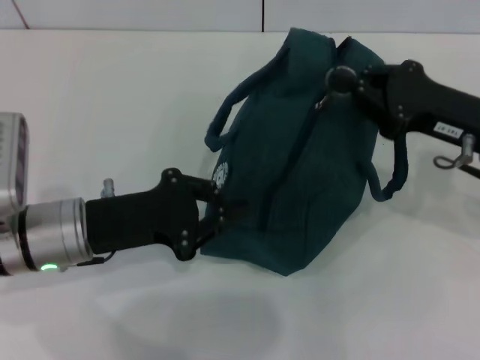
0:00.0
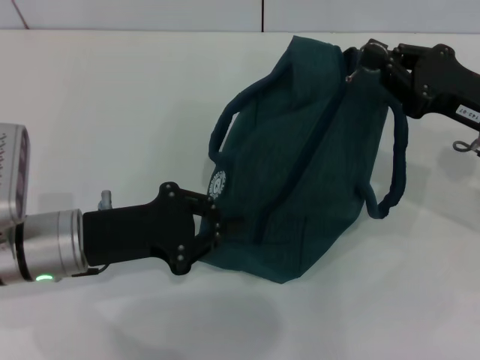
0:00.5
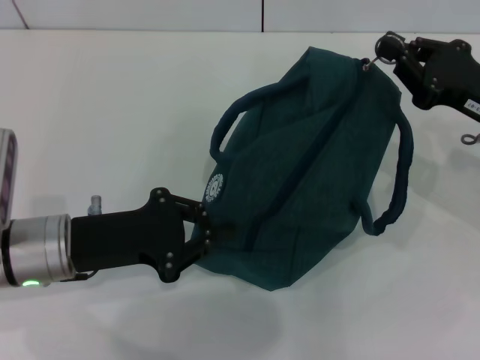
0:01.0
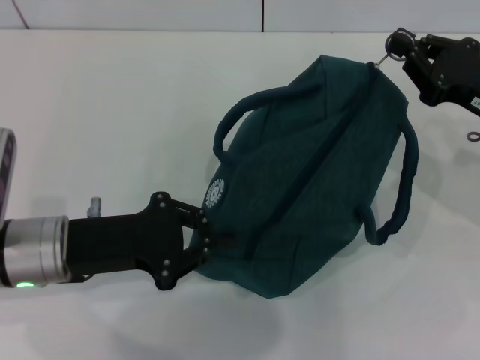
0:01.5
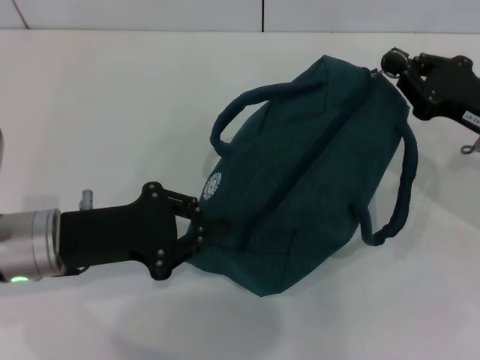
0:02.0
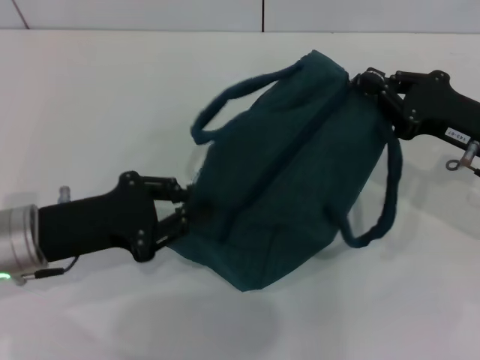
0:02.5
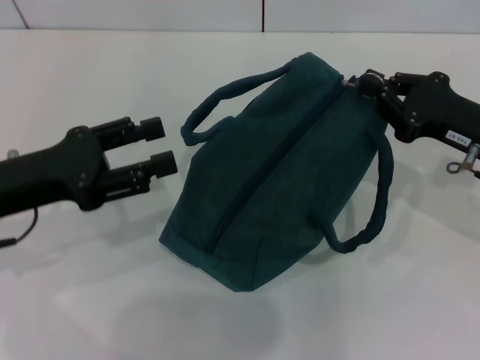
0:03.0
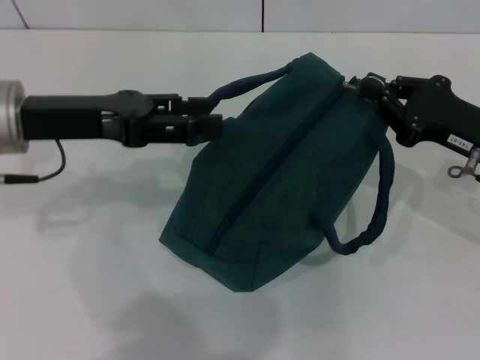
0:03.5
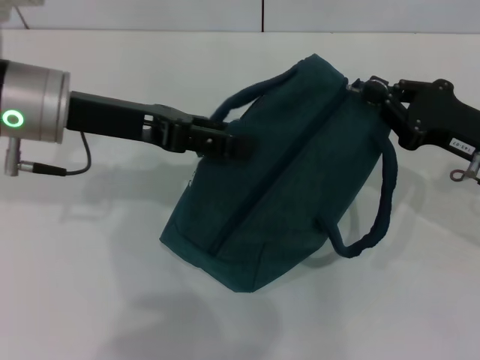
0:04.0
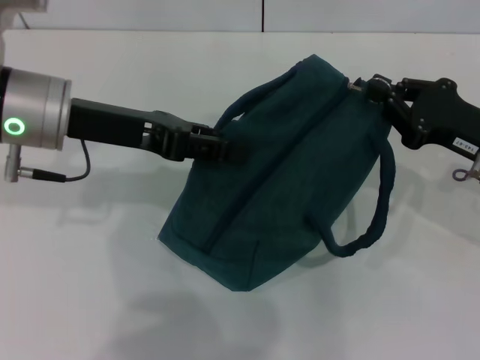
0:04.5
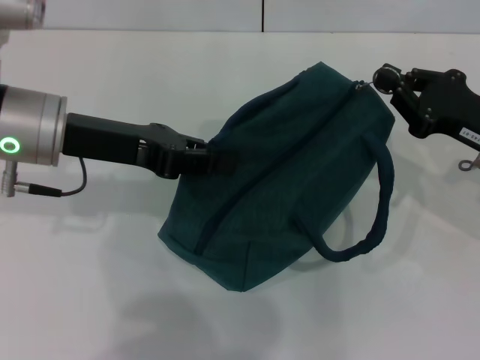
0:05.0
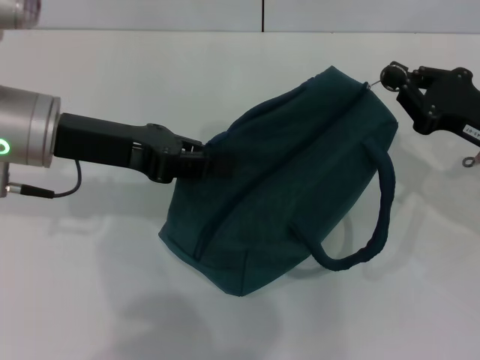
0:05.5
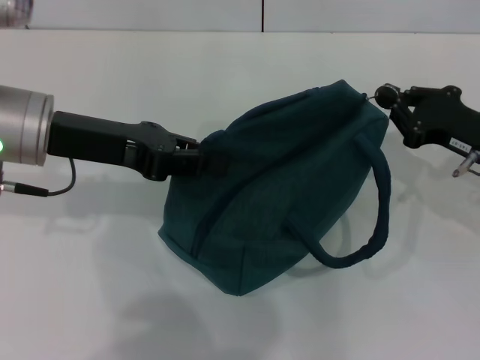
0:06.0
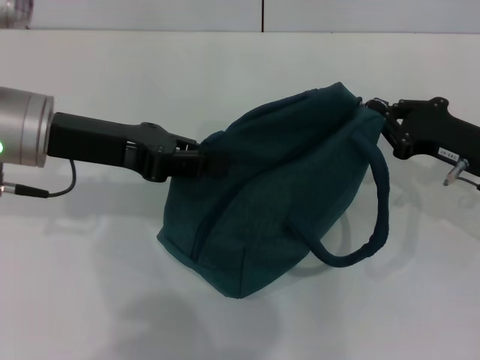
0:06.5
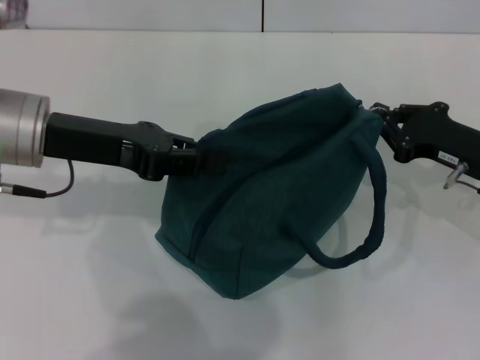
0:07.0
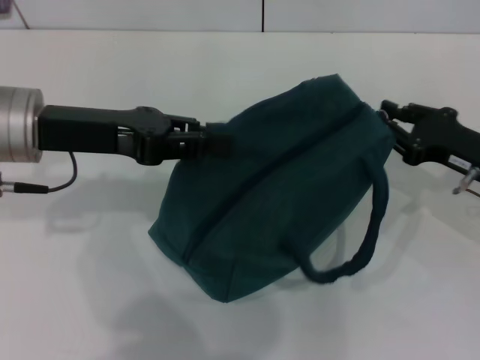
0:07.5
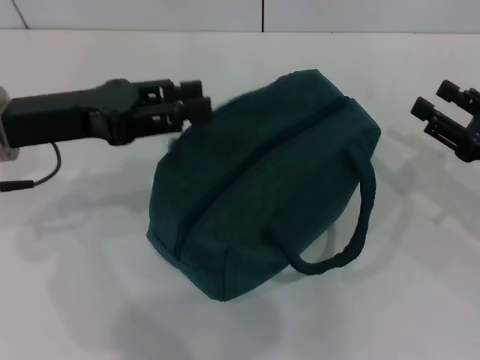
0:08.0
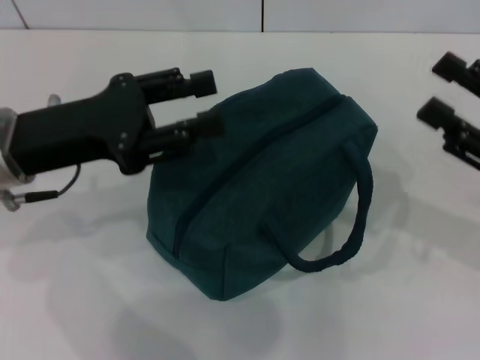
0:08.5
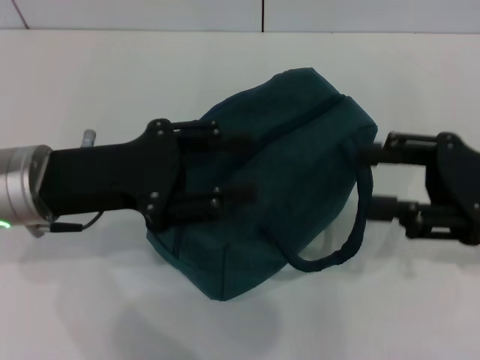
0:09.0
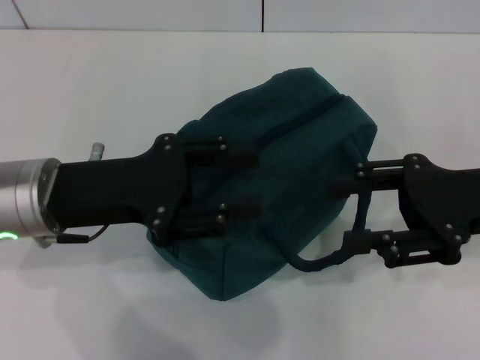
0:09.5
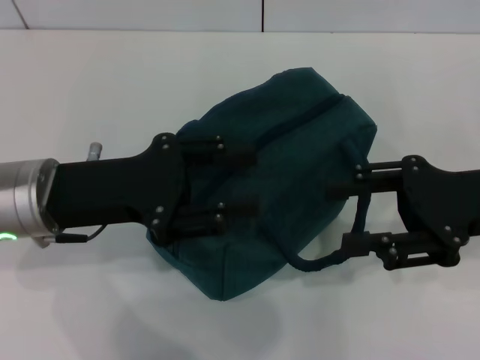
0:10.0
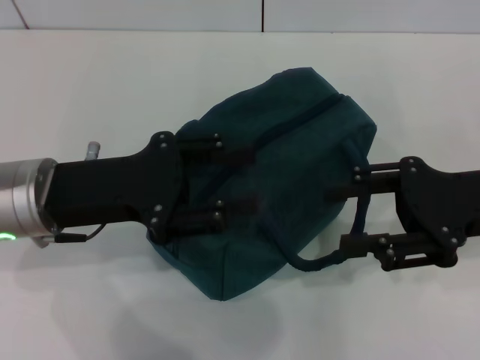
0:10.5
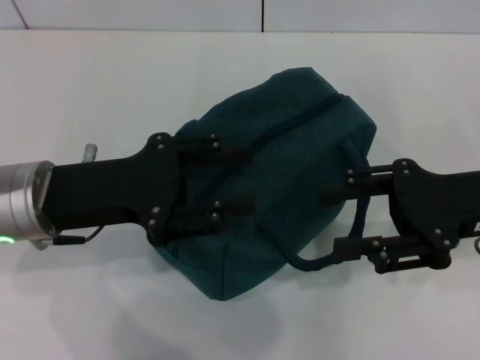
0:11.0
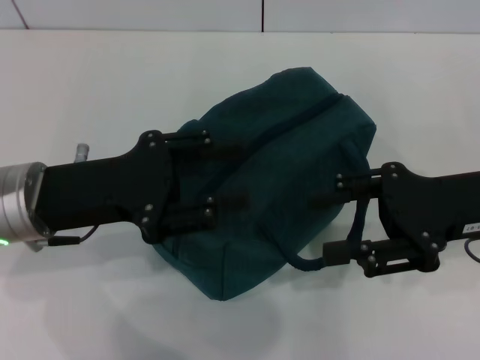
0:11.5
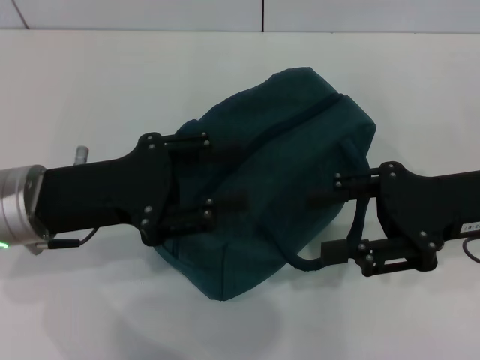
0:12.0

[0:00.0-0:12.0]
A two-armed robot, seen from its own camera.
Step, 0:00.0 to 0:07.5: Zip up the lunch bag with your right hand.
0:00.0 to 0:02.0: There are only small adjustments of the grippers.
0:02.0 to 0:04.0: The left gripper is displaced upward and forward by some 15 cm, and opens up.
0:04.0 to 0:06.0: The left gripper closes its fingers.
0:06.0 to 0:08.0: The left gripper opens its fingers. The right gripper ends up about 5 cm from where it was, and opens its fingers.
0:08.0 to 0:10.0: The right gripper moves upward and to the left, approximately 10 cm. Meanwhile the left gripper ends up about 5 cm from where it was.
0:10.0 to 0:12.0: The grippers move only a little.

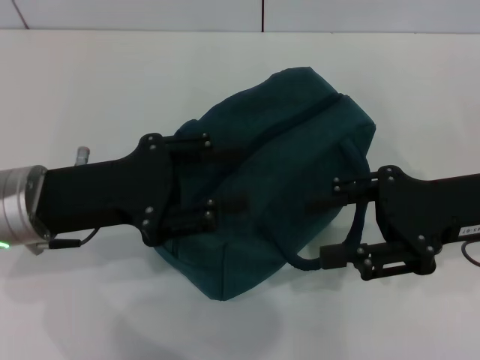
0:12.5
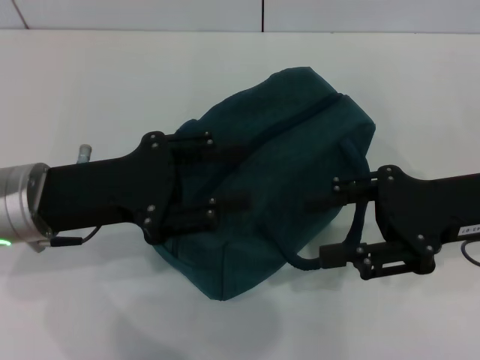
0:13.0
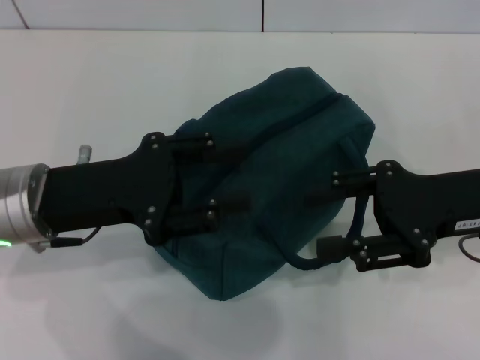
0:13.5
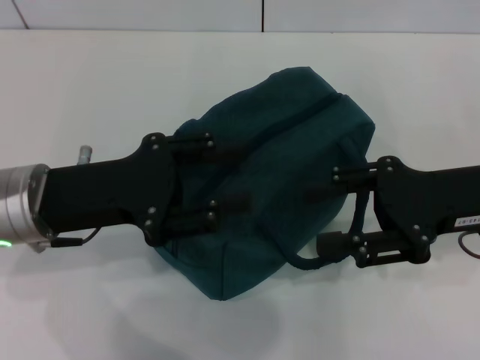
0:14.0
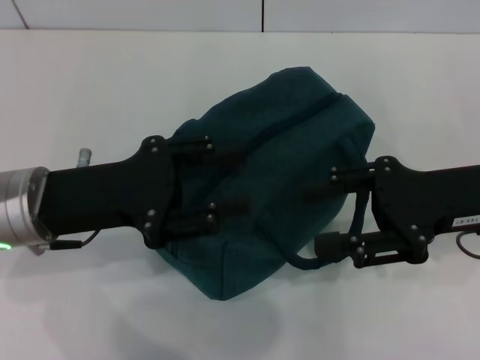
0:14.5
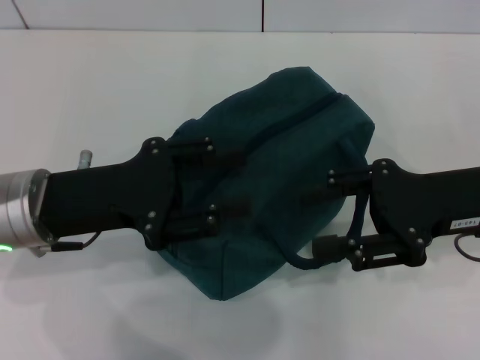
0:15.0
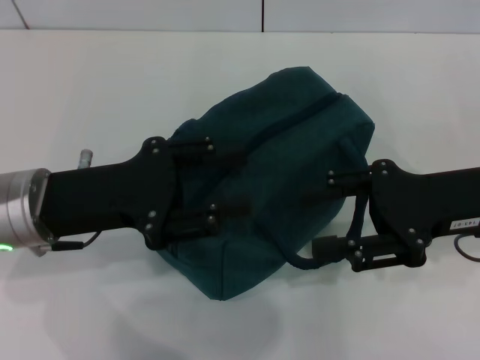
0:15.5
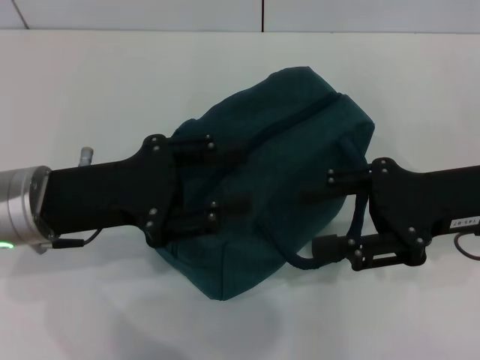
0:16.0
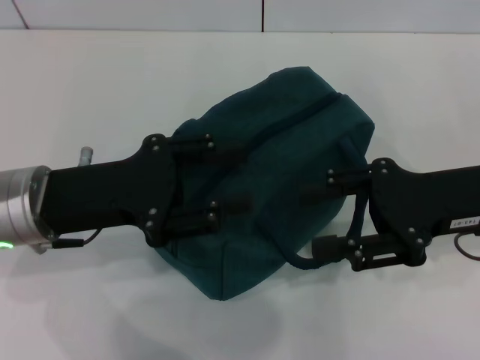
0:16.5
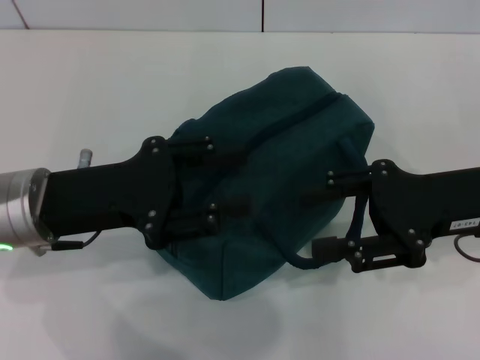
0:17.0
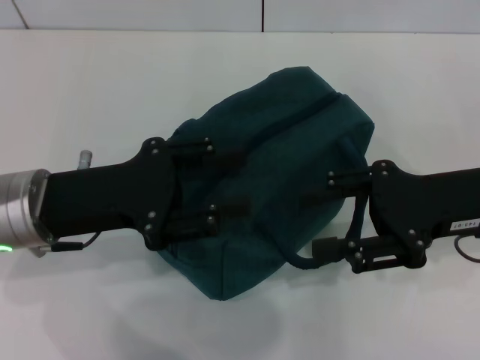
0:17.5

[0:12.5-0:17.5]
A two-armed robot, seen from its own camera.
0:12.5 to 0:17.5: The two grippers keep their place.

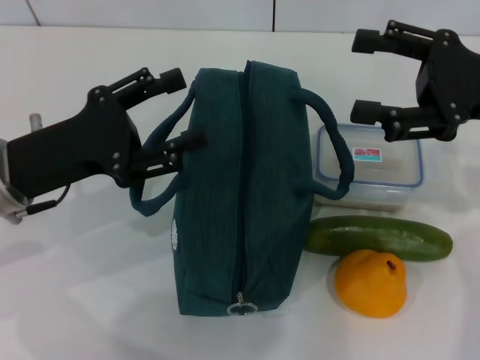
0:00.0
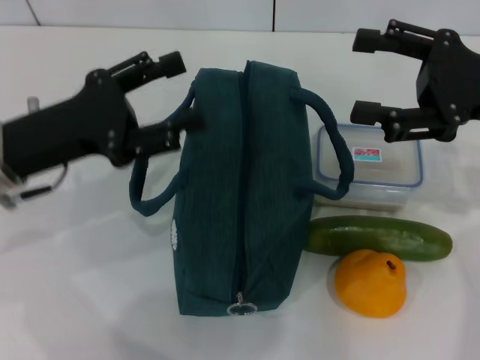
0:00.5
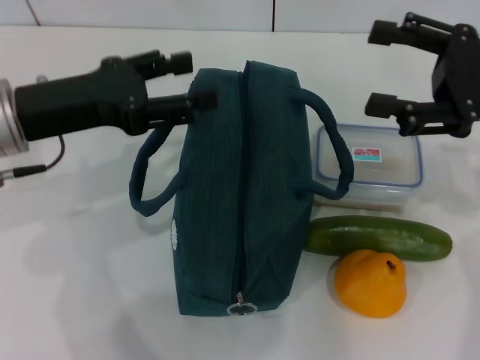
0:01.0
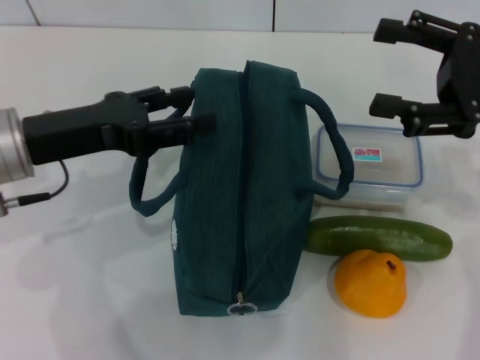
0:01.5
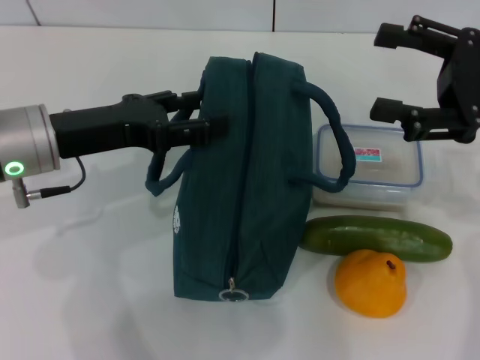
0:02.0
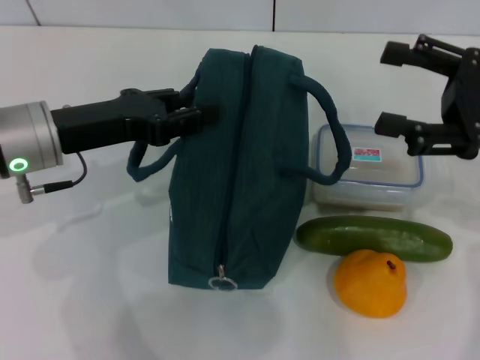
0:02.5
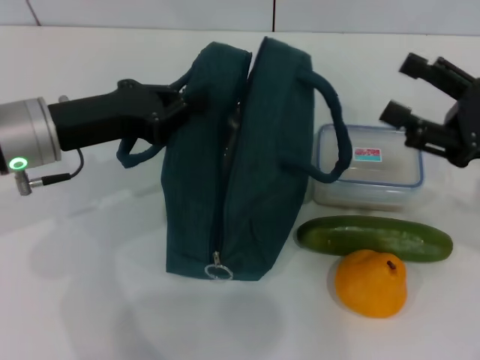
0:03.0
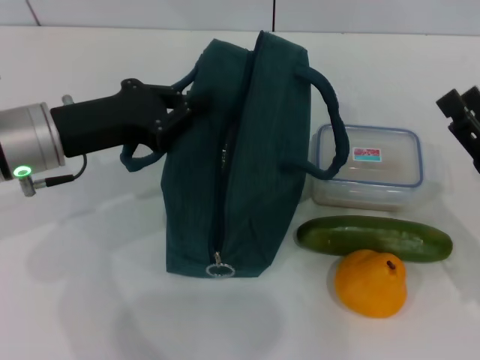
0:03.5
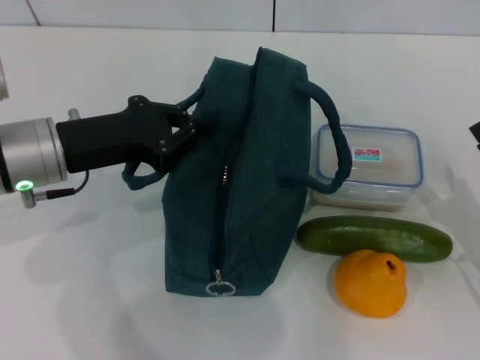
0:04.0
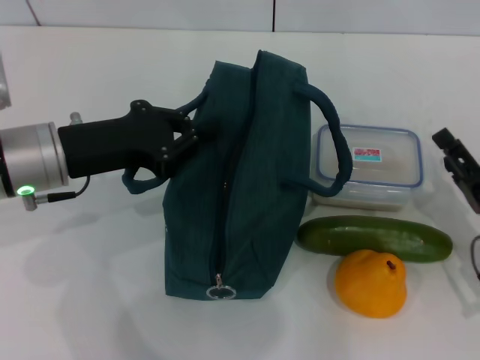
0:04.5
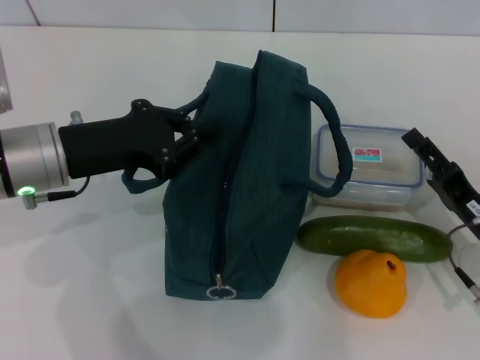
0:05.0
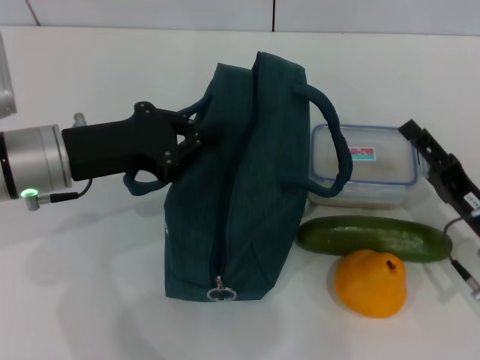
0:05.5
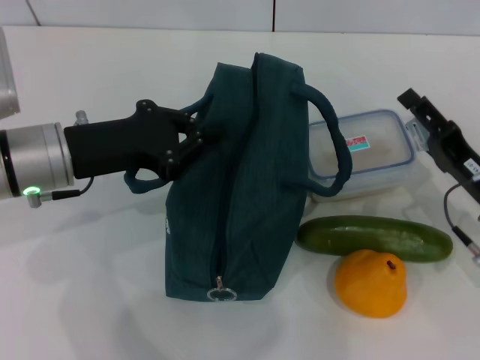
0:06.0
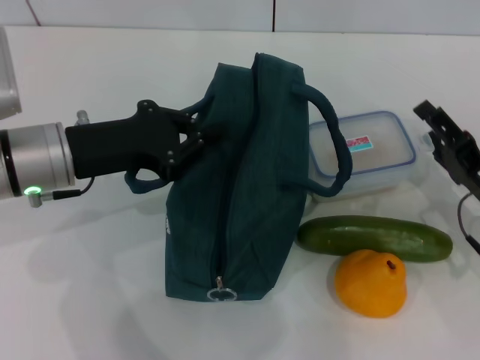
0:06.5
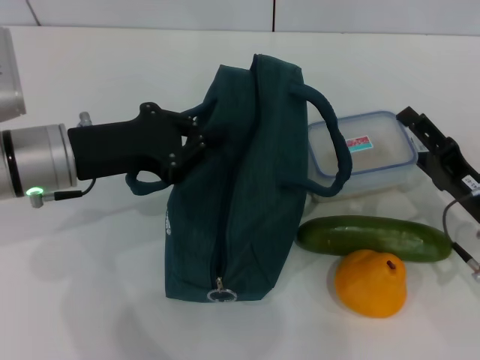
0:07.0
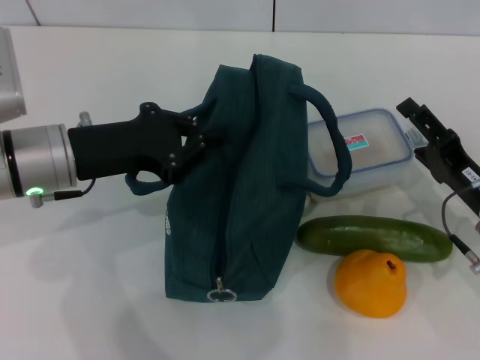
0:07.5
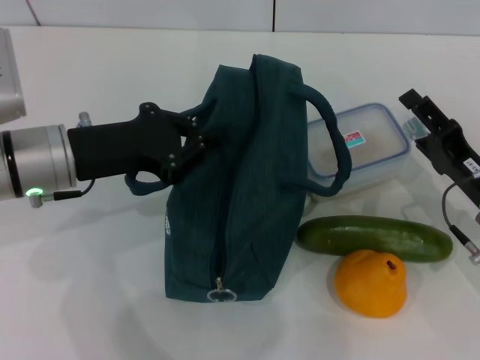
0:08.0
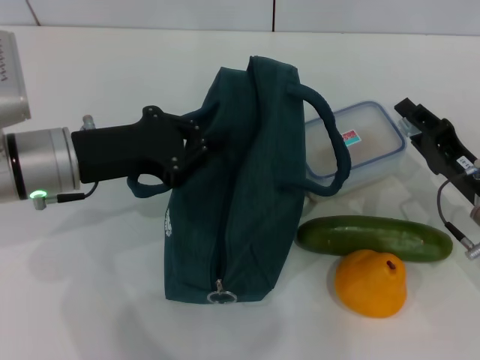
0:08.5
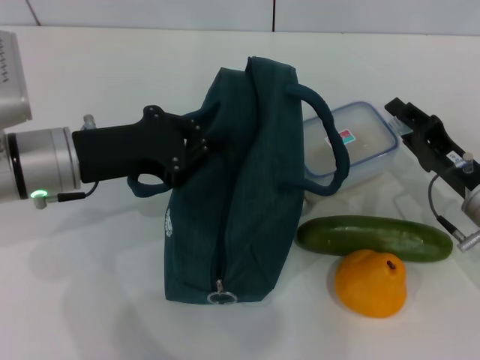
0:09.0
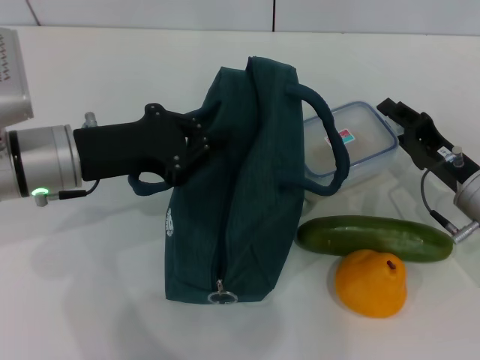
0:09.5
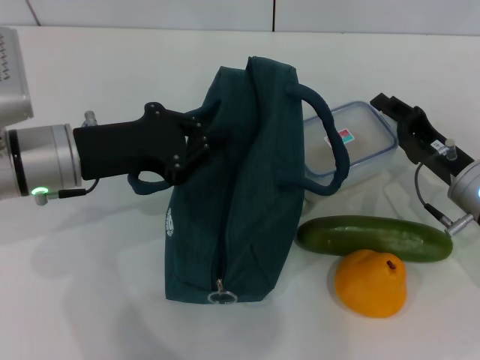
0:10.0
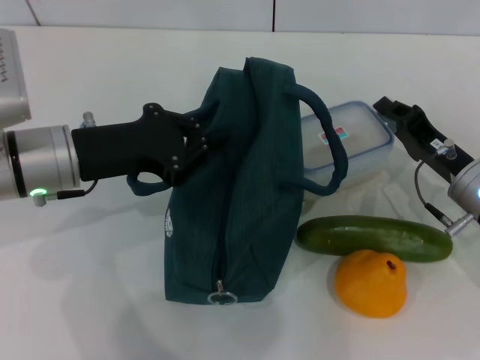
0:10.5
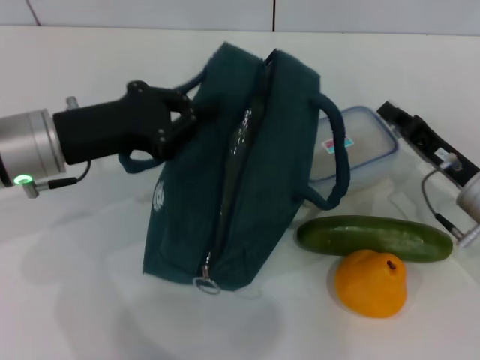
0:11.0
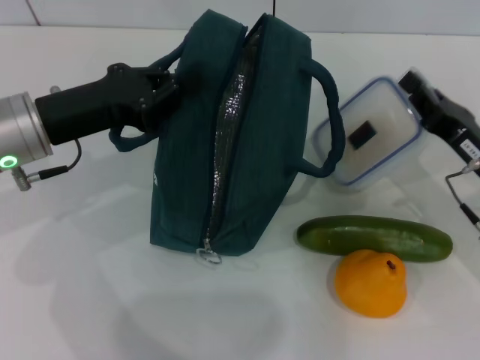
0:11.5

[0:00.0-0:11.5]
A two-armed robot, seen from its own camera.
Step, 0:00.0 to 0:03.0: Hold the lunch bag with your left hand.
Step, 0:04.0 to 0:11.0: Pick up the lunch box with your right hand.
0:02.0 to 0:04.0: The left gripper closes. Meanwhile the right gripper shifts about 20 cm downward and backward.
0:04.0 to 0:06.0: The right gripper travels forward by about 5 cm.
0:06.0 to 0:07.5: There are only small adjustments of the grippers.
0:07.5 to 0:09.5: The right gripper closes its fingers.
